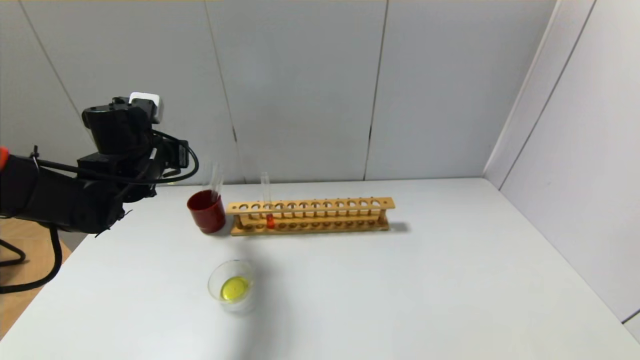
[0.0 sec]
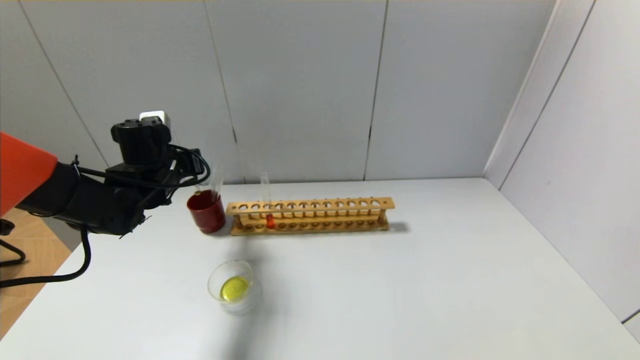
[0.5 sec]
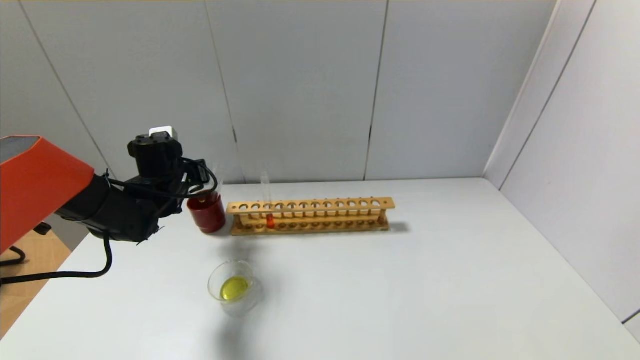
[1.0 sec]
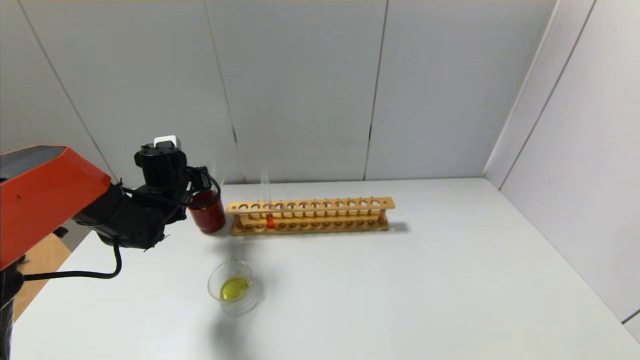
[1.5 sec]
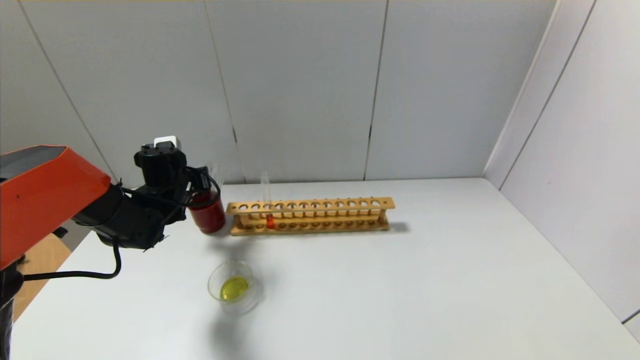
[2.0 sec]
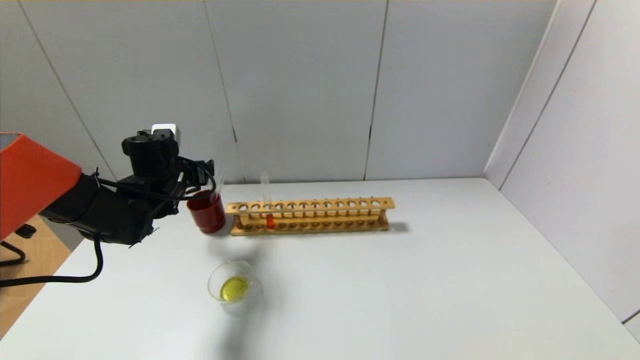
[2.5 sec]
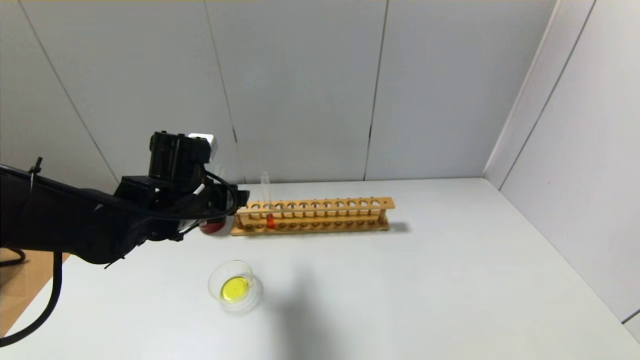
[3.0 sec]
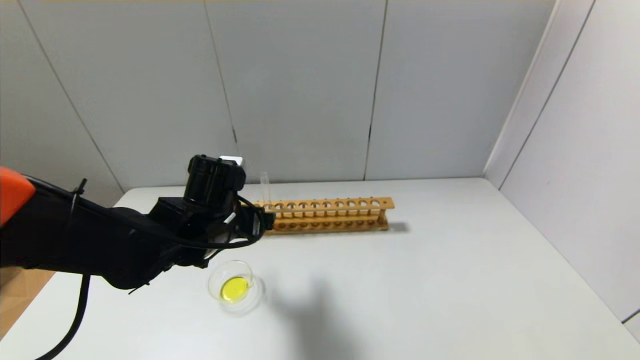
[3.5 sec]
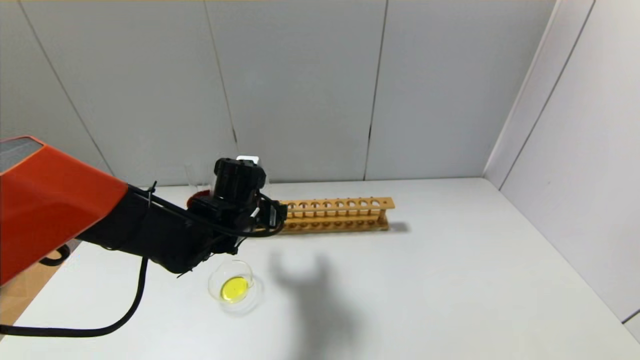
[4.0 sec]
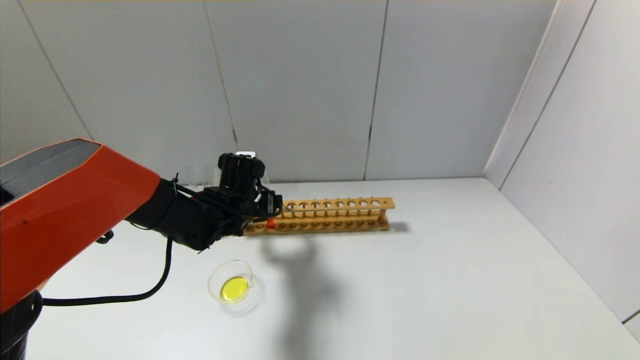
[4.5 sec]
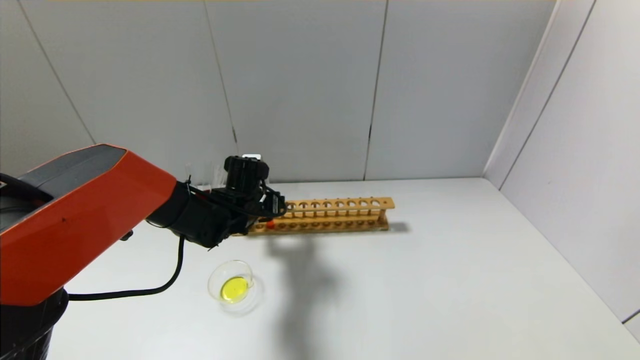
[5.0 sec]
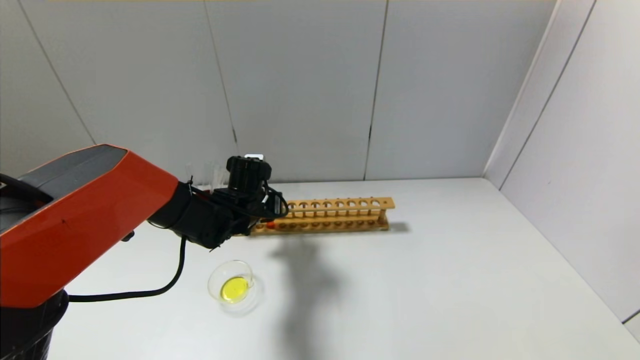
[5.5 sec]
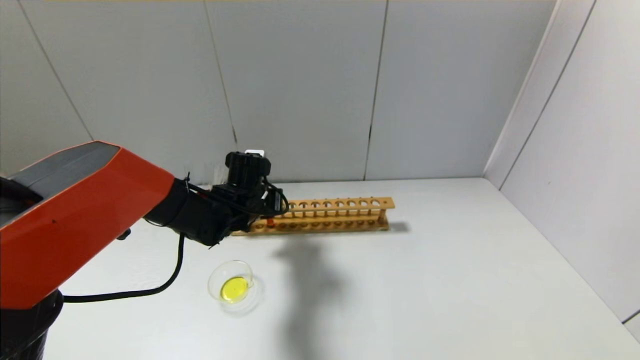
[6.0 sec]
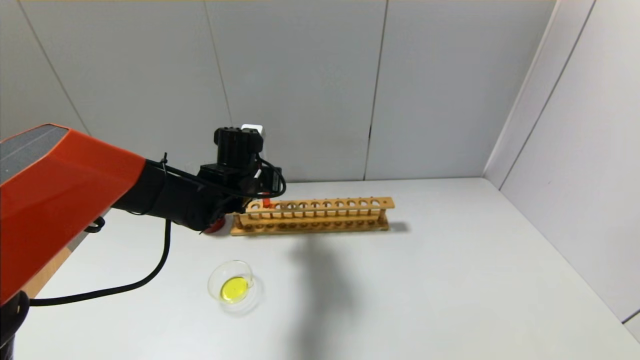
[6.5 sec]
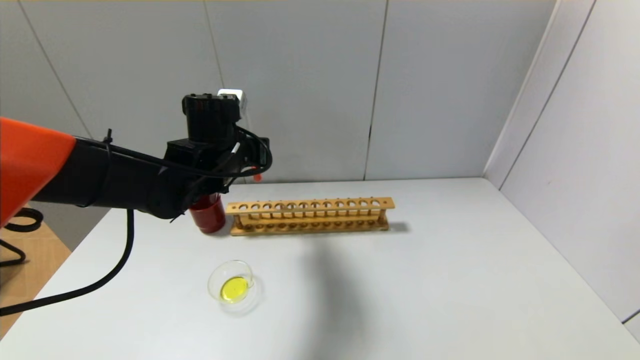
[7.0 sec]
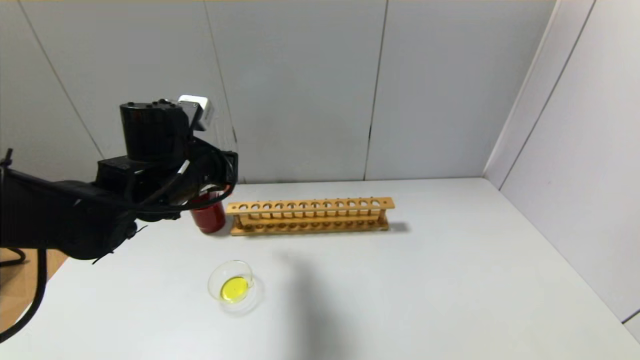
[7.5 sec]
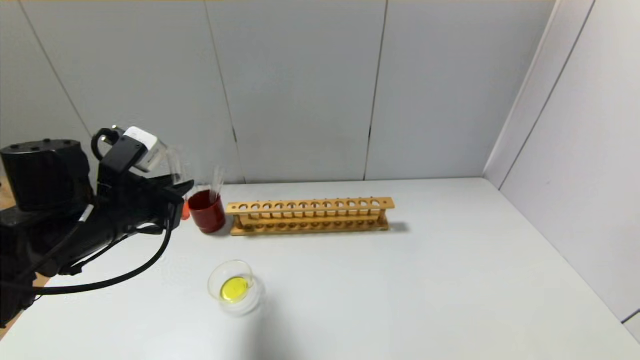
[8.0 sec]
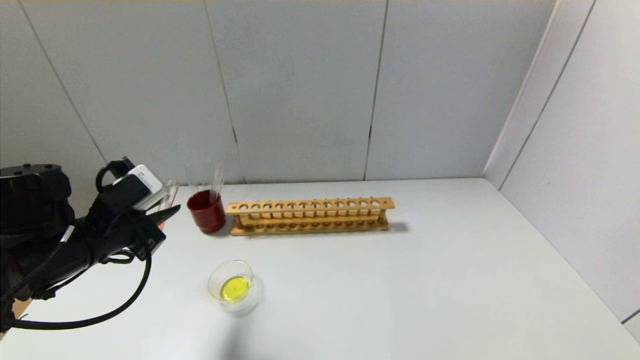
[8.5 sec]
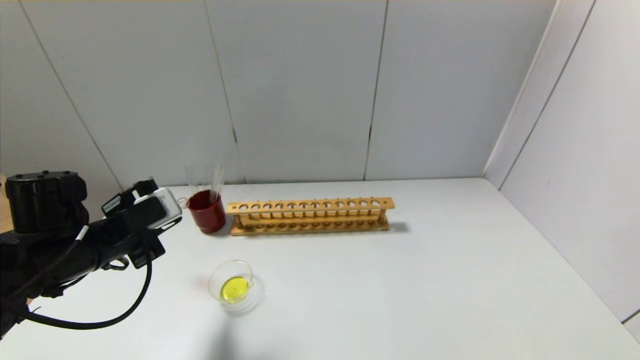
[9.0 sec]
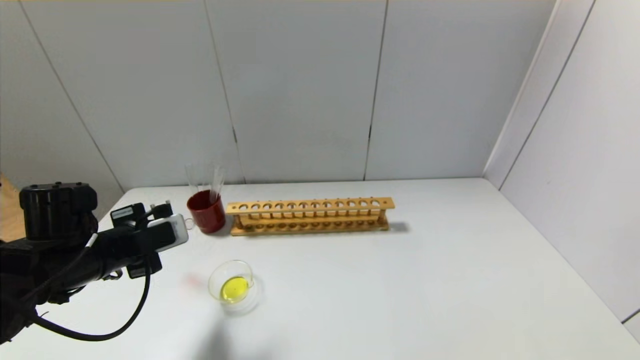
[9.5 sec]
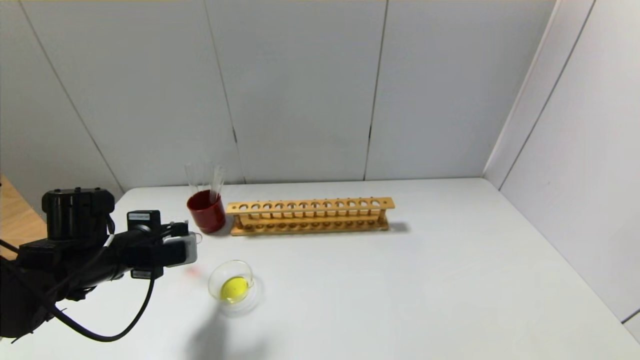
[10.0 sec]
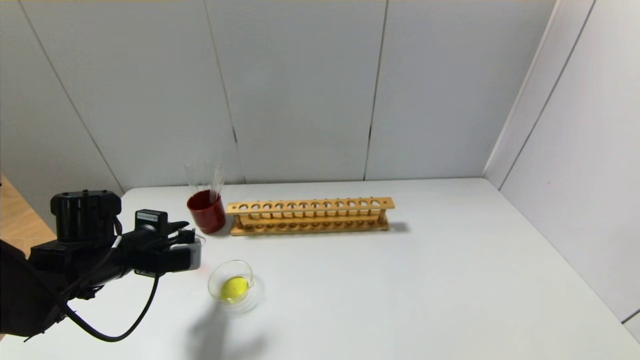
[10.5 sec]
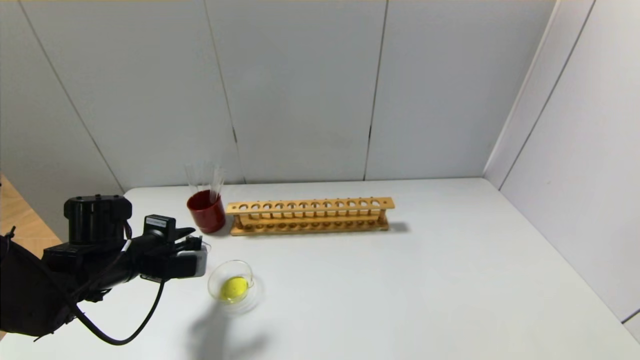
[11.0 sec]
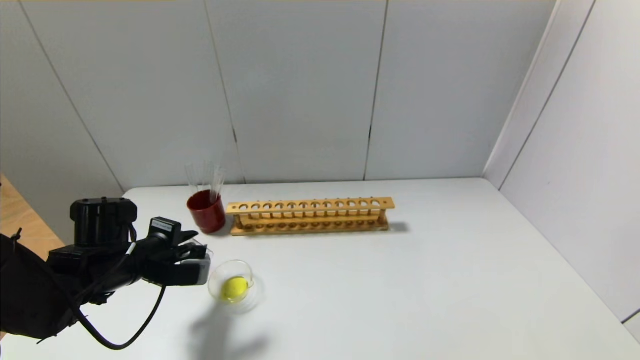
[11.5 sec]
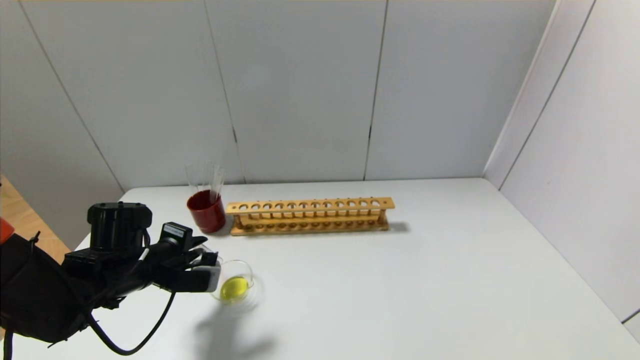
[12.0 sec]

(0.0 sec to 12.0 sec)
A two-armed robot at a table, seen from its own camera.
Step, 0.0 sec - 2.0 sec: Place the test tube into the brown cup with the left gripper.
Step, 2.5 sec - 5.5 sec: Grasp the red reagent with the left gripper.
0.0 sec - 2.0 sec: The left gripper travels downward and forward by some 10 cm, and opens.
2.0 sec - 4.0 sec: The left gripper is displaced to the right and backward by some 15 cm, and opens its fingers.
4.0 sec - 6.0 sec: The left gripper is displaced forward by approximately 5 cm, and closes its fingers.
6.0 sec - 8.0 sec: The left gripper moves backward, to the left and upward, about 20 cm.
8.0 sec - 10.0 sec: The left gripper heads downward, covering approximately 10 cm.
10.0 sec - 12.0 sec: The grippers make only small movements.

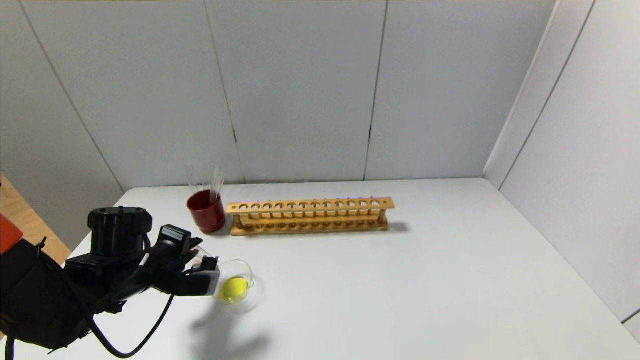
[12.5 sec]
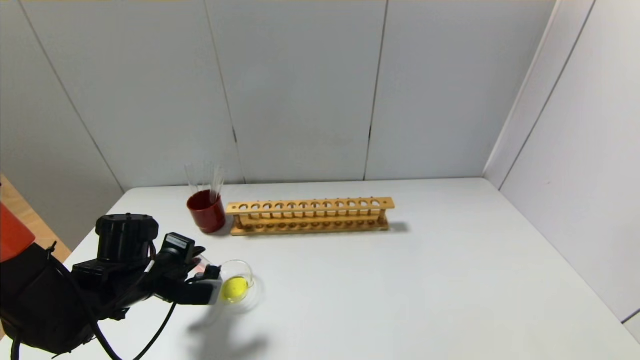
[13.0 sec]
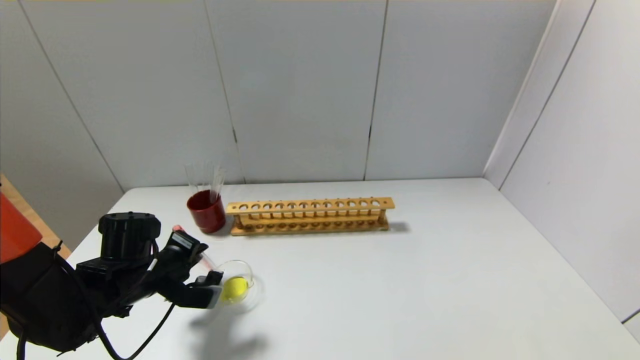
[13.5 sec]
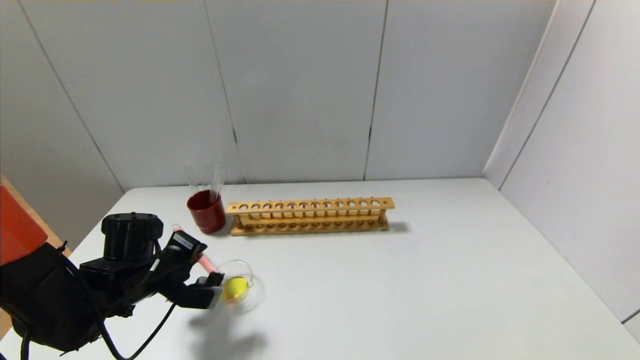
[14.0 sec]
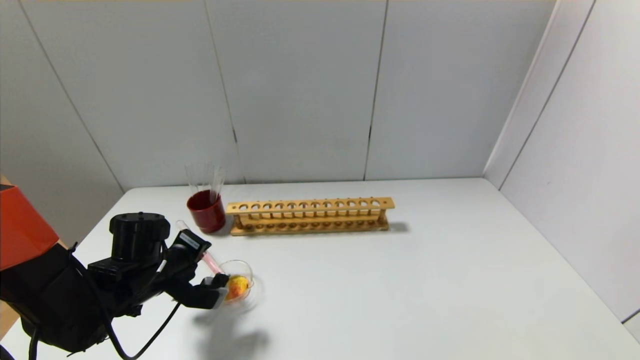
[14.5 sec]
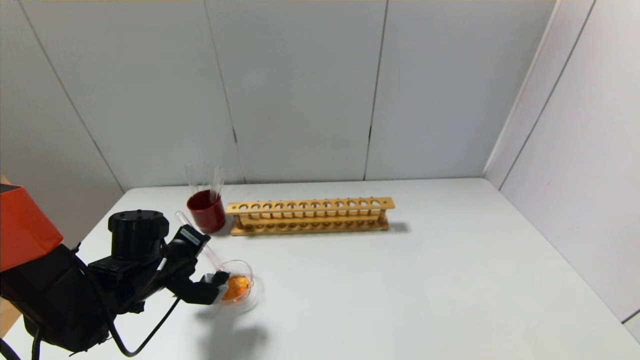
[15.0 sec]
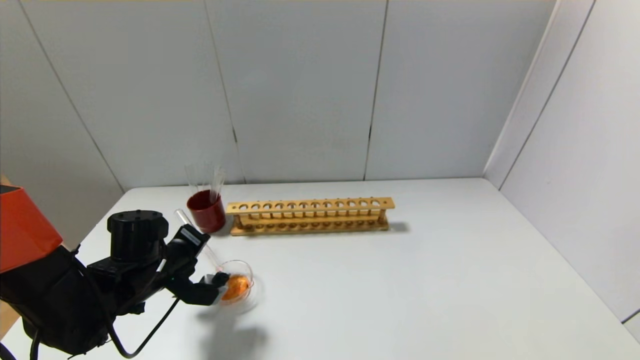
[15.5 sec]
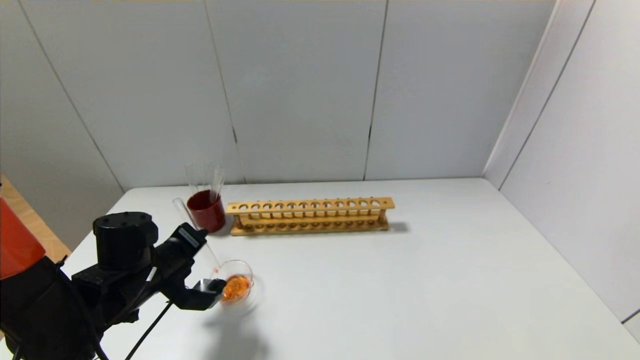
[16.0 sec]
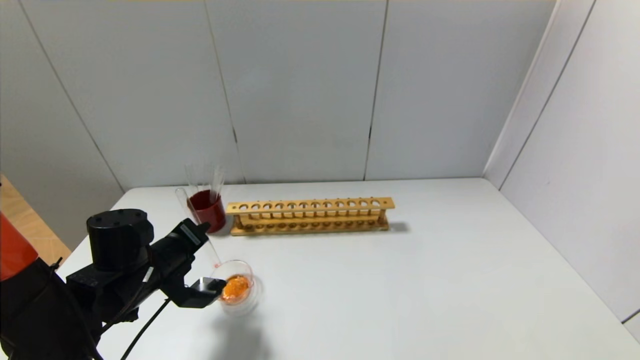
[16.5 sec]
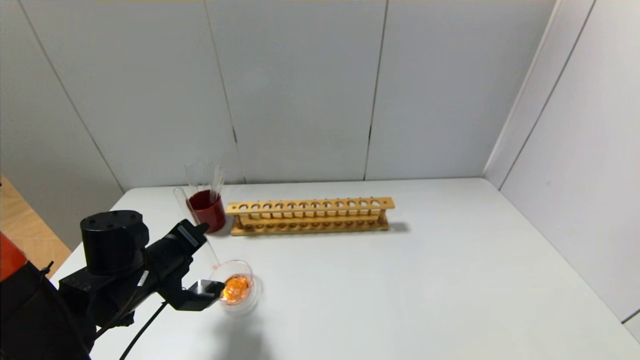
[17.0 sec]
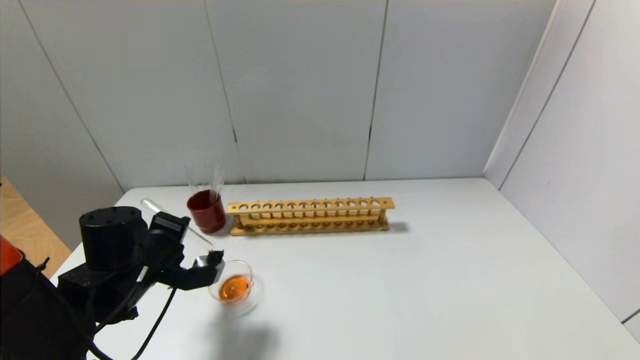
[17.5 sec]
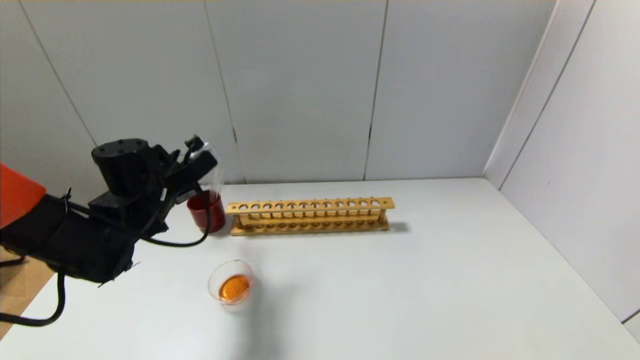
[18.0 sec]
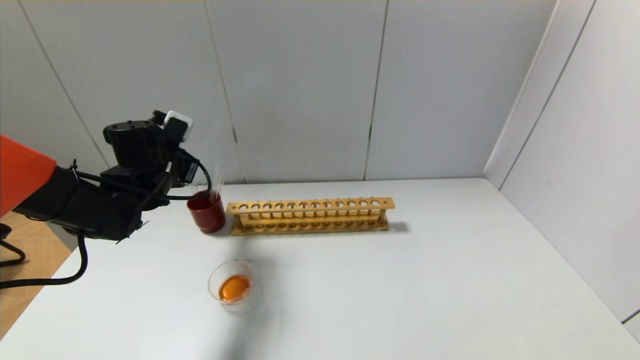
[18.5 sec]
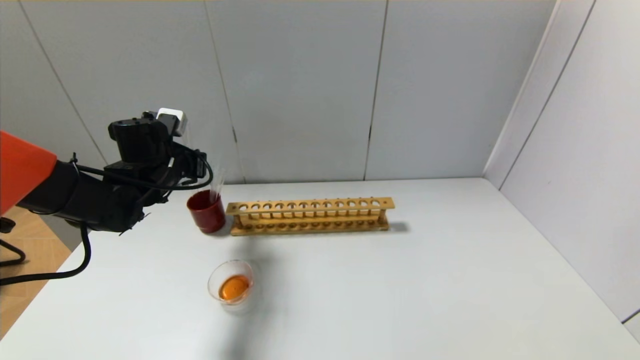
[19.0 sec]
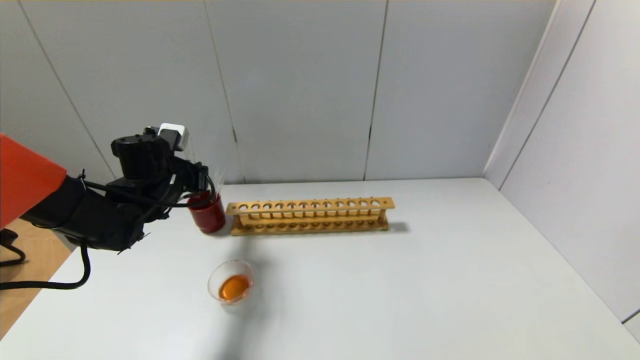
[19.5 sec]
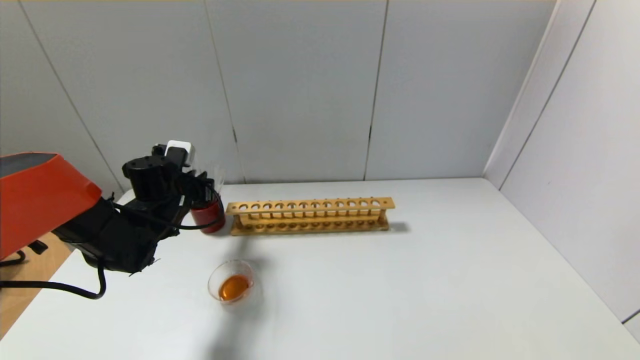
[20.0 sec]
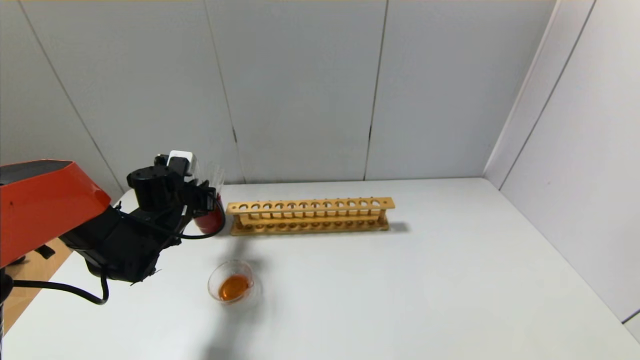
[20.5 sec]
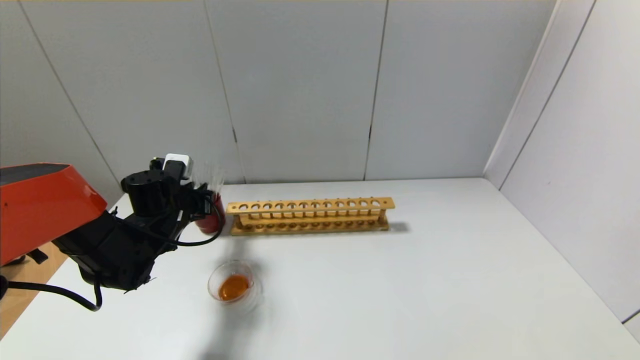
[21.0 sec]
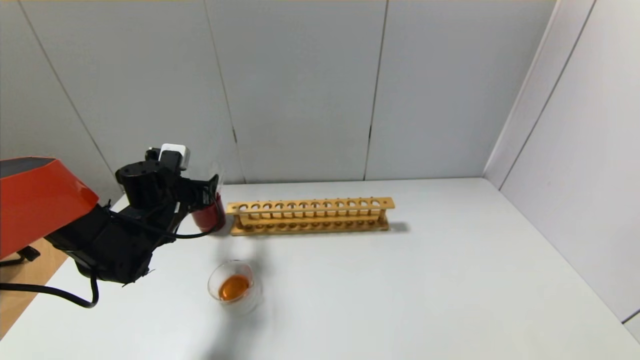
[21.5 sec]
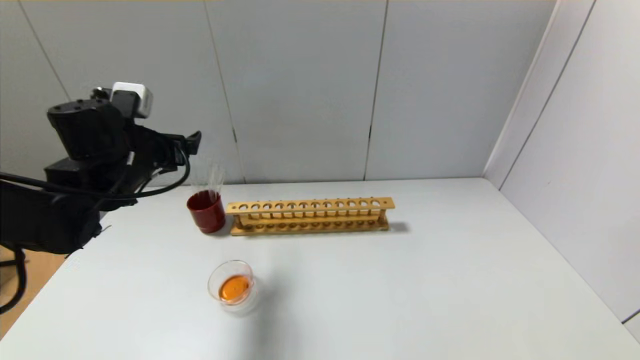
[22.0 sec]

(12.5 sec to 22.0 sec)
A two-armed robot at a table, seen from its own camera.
Step, 12.5 sec - 17.0 sec: Pour the red reagent into the graduated cylinder with the left gripper.
Step, 17.5 sec - 21.5 sec: Place the test tube into the brown cup with the left gripper.
12.5 sec - 14.5 sec: The grippers stay close to where they were, moving slightly.
16.5 sec - 18.0 sec: The left gripper goes roughly 10 cm forward and upward.
18.0 sec - 20.0 sec: The left gripper goes roughly 5 cm downward.
20.0 sec - 22.0 sec: The left gripper heads upward and backward, covering approximately 15 cm, and opens up.
